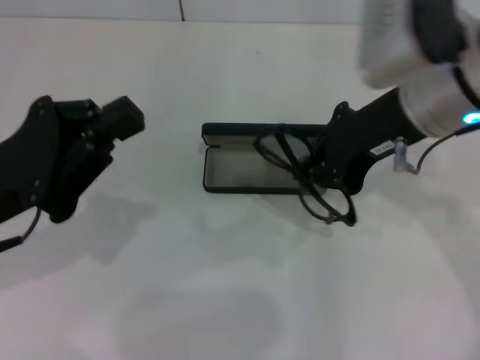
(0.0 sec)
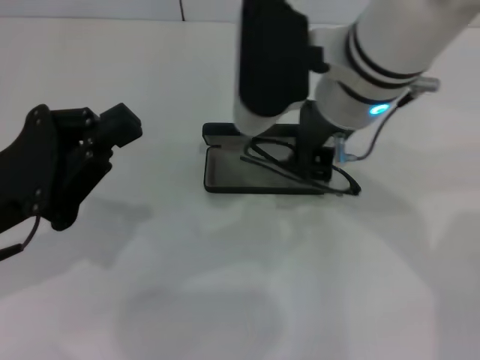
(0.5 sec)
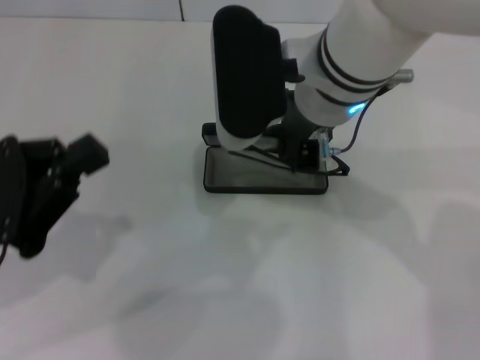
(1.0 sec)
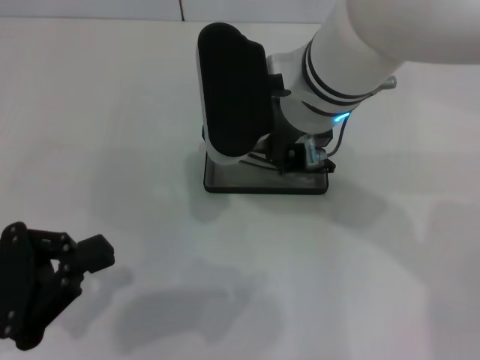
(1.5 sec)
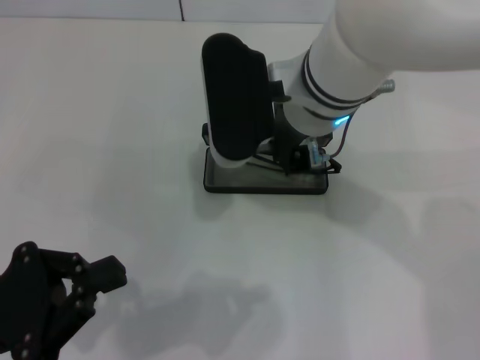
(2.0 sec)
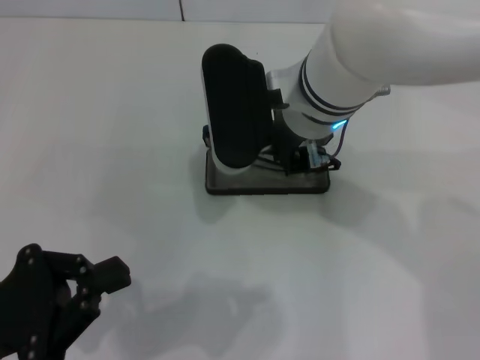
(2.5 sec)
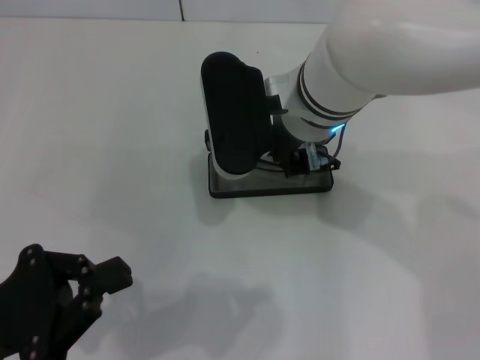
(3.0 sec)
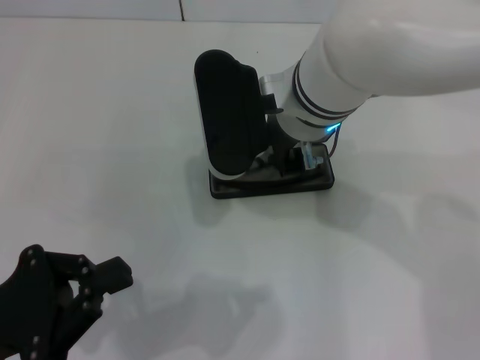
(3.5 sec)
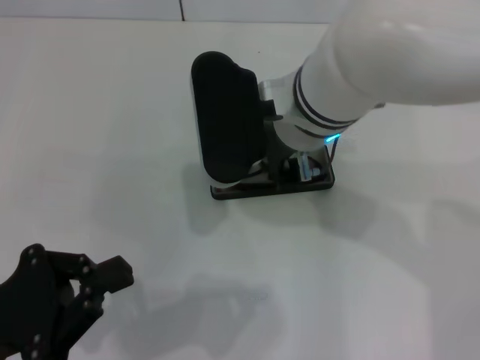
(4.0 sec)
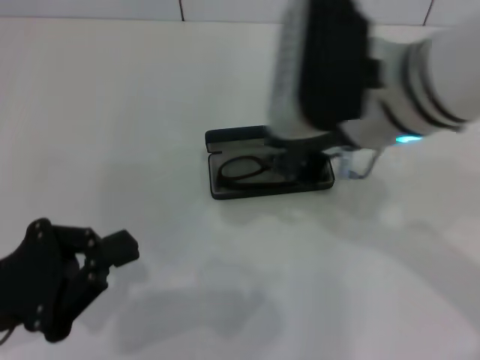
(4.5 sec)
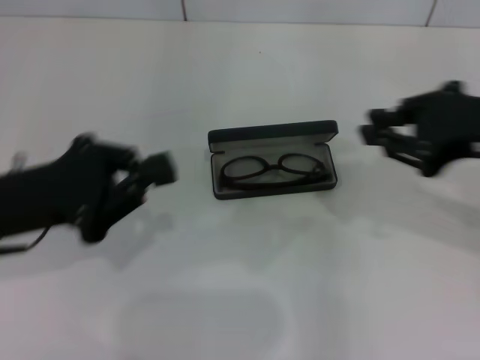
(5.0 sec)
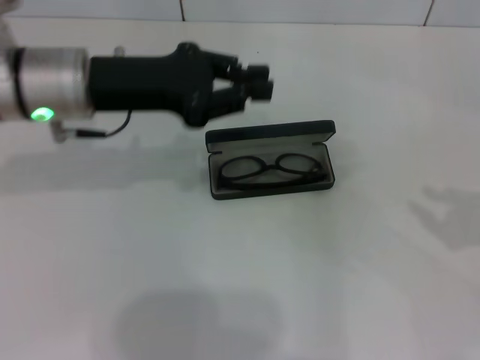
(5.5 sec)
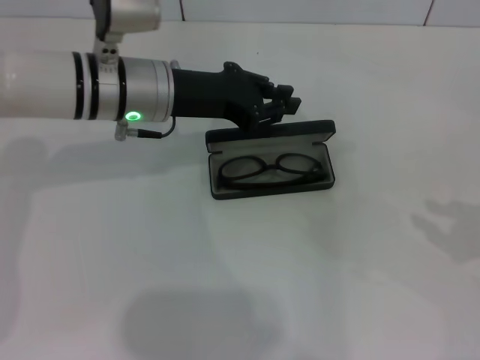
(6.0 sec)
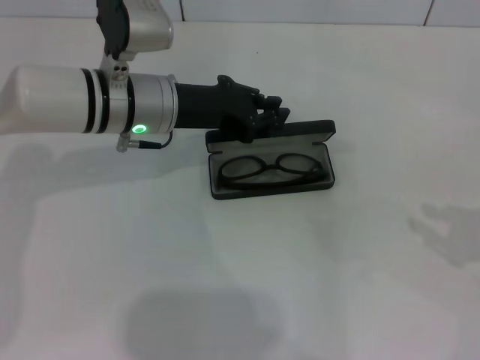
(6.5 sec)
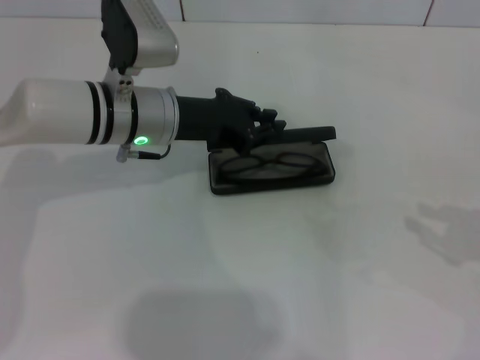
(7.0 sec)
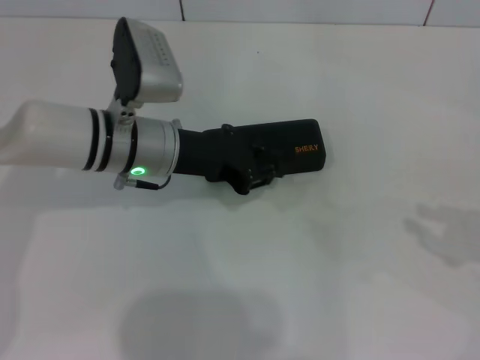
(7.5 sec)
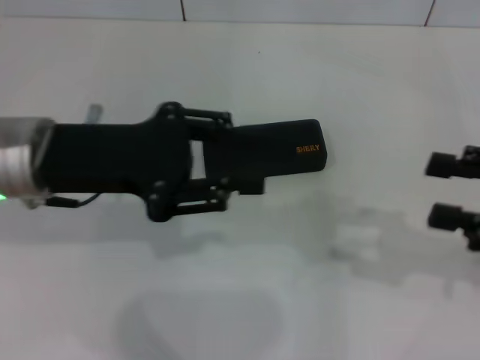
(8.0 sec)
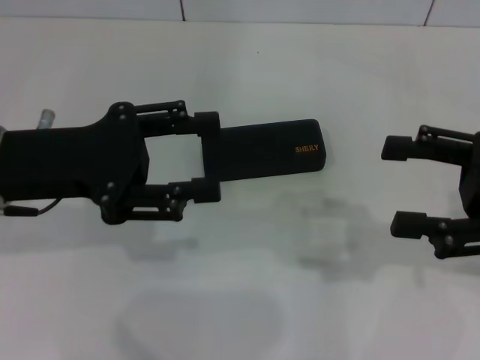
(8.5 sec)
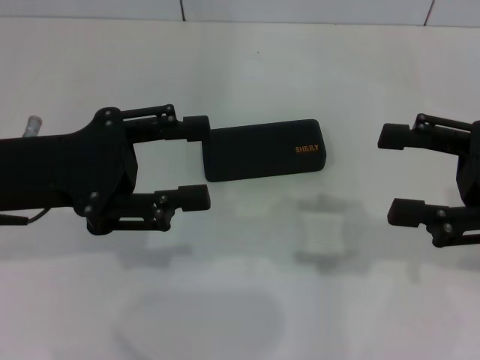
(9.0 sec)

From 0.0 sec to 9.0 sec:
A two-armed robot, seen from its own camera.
Step, from 0.0 sec to 3.0 sec: Put the glasses into the case with your right hand.
Step, from 3.5 sec to 7.0 sec: Close the glasses case with your left hand.
From 0.0 sec to 2.0 sec: The right gripper travels to the left by roughly 10 cm. Meanwhile the left gripper moves backward, approximately 10 cm.
From 2.0 sec to 4.5 sec: The right gripper heads to the right, covering some 5 cm.
From 4.5 sec to 7.0 sec: The left gripper moves forward and to the right, approximately 25 cm. Meanwhile the right gripper heads to the right, covering some 30 cm.
From 7.0 sec to 9.0 sec: The right gripper travels to the left by about 10 cm, and opens up. The left gripper moves backward, to the left and upward, approximately 15 cm, and opens up.
